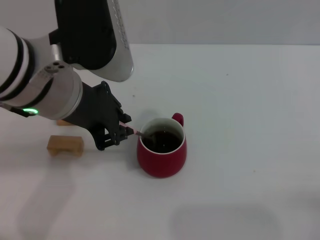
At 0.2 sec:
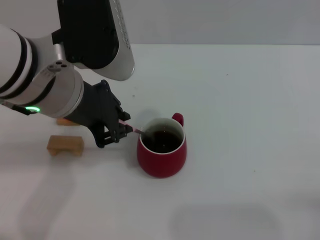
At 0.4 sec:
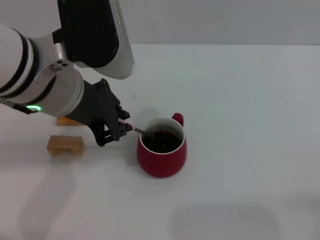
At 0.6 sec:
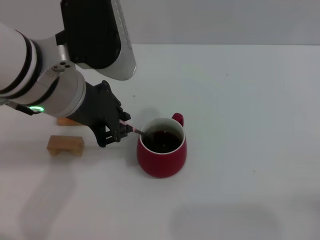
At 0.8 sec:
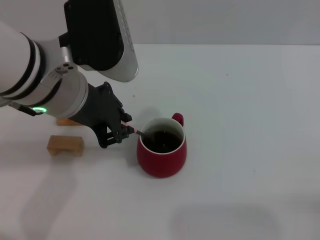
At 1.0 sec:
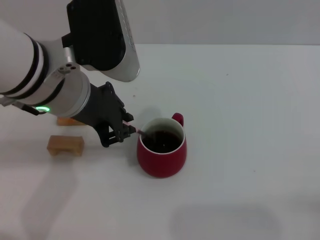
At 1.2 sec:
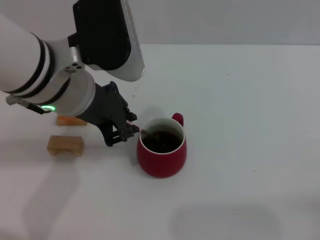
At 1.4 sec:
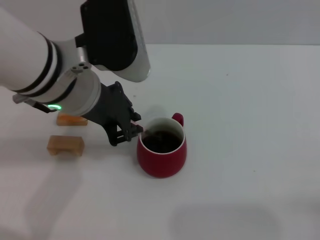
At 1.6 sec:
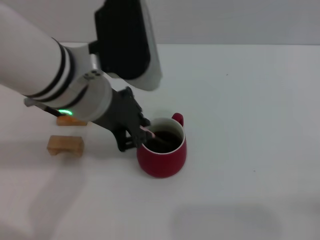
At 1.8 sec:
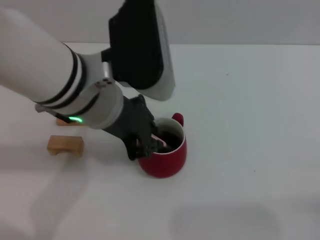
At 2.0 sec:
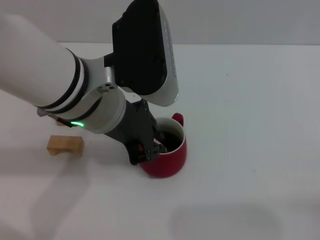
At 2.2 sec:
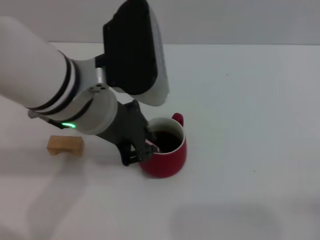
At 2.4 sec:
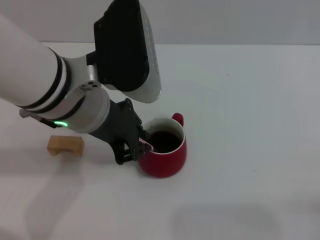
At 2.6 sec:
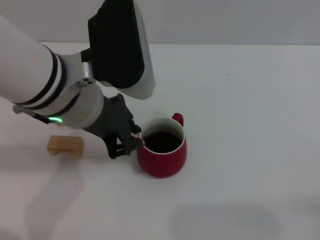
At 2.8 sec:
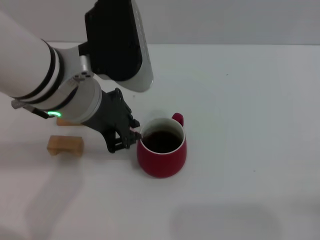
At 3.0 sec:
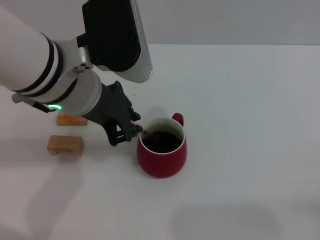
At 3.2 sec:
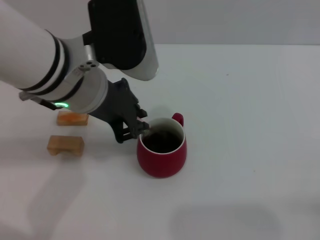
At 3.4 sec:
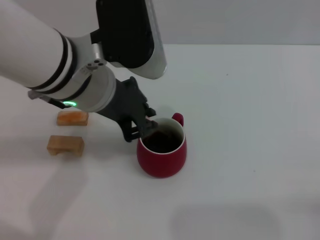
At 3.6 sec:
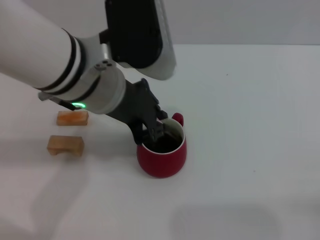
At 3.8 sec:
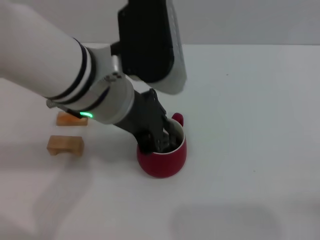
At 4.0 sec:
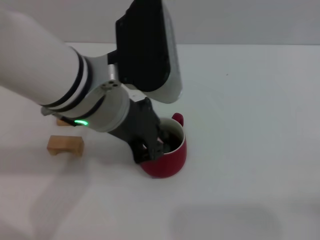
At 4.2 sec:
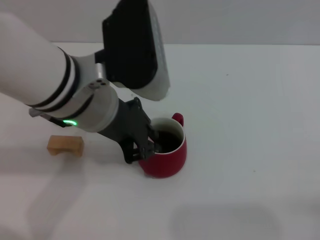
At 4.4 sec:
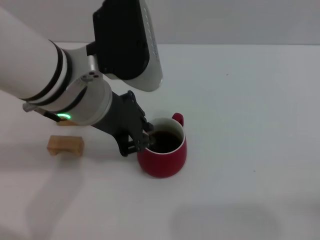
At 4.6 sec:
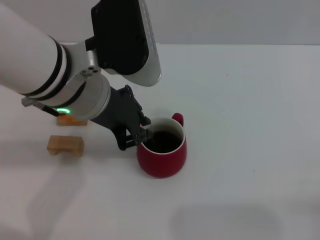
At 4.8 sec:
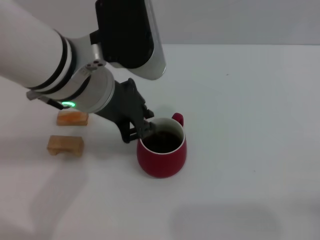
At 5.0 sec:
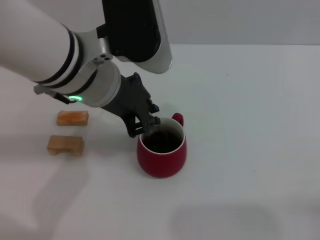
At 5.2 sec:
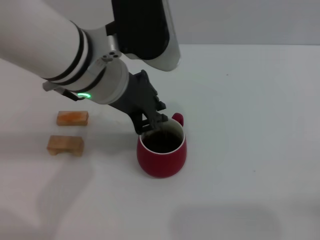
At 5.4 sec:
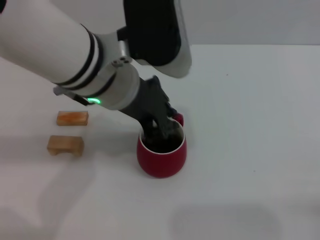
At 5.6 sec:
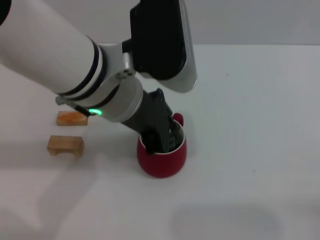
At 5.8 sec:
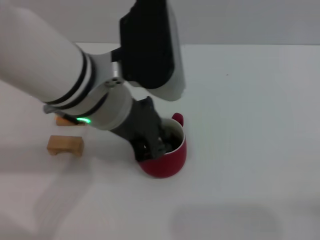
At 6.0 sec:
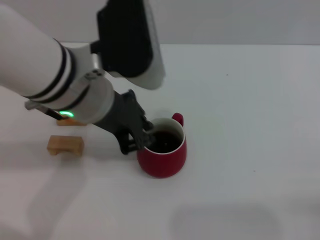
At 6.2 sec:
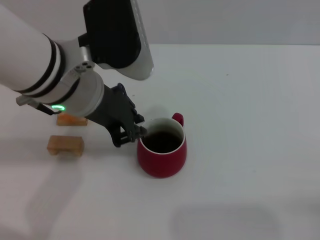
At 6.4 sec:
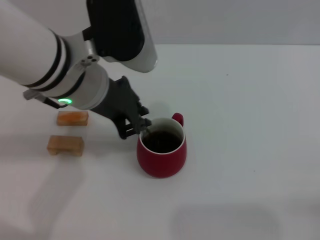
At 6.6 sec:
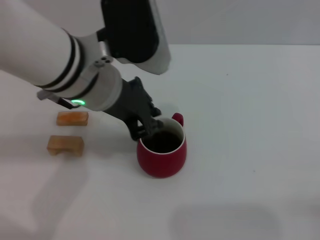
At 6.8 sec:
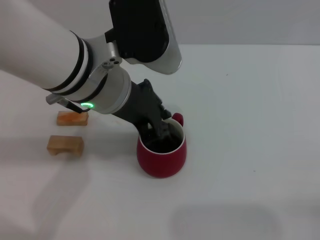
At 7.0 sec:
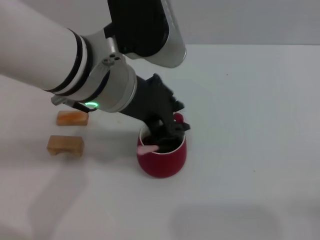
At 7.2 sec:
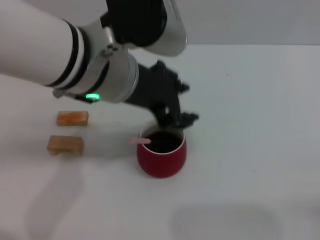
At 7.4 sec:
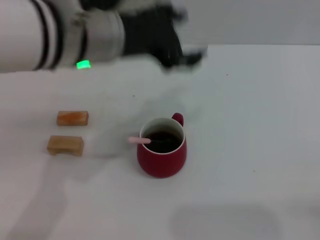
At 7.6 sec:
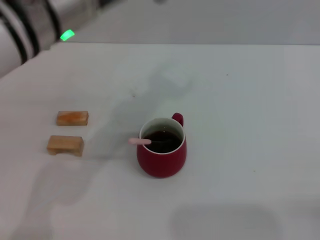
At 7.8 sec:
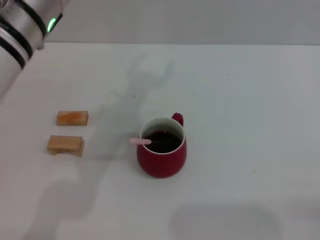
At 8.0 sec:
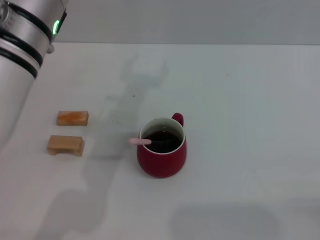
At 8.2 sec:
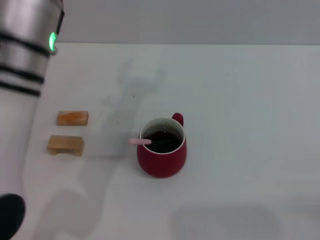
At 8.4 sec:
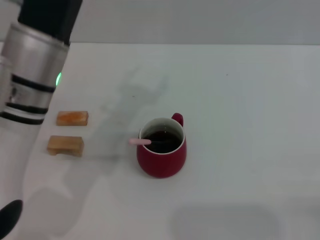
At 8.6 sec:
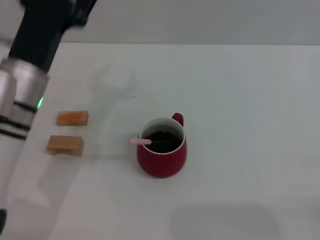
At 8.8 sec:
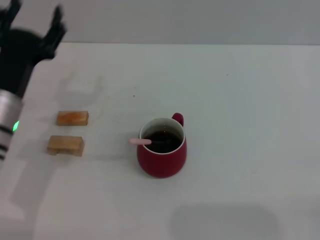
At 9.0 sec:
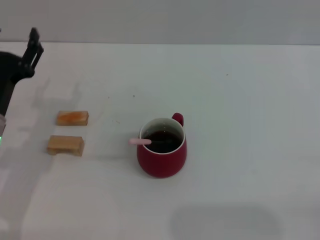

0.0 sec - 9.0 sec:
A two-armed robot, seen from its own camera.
Task of the whole recording: Move the red cup to the center, lift the pink spoon, stir it three times in the cup, and put the spoon into the cup.
Step, 0.0 sec - 7.2 sec: Stir the coffee in the cup with the left gripper.
0.0 sec - 6.0 sec: There are only small adjustments of the grippers.
6.0 sec - 7.6 sec: The left gripper opens its fingers.
7.6 sec - 9.0 sec: The left gripper heads downward and to the left, covering roughly 25 cm.
